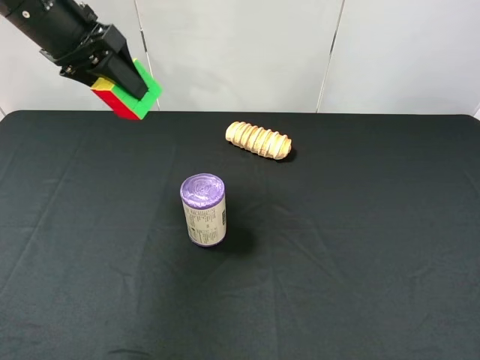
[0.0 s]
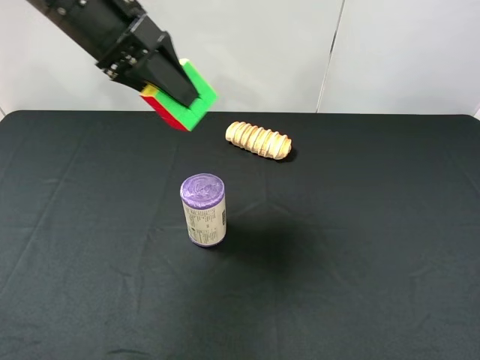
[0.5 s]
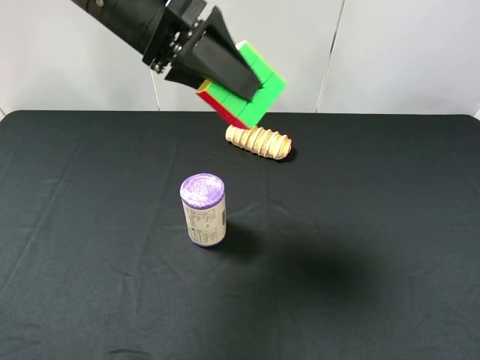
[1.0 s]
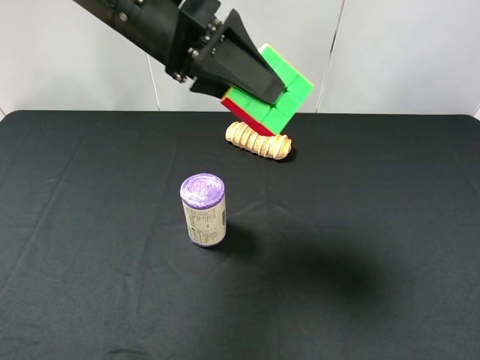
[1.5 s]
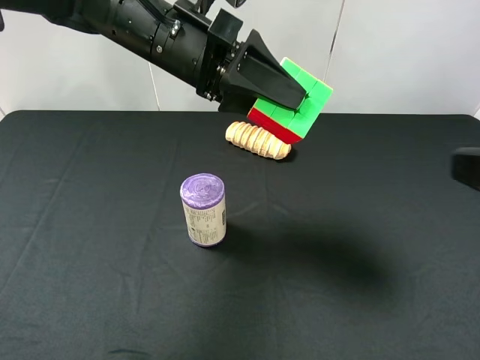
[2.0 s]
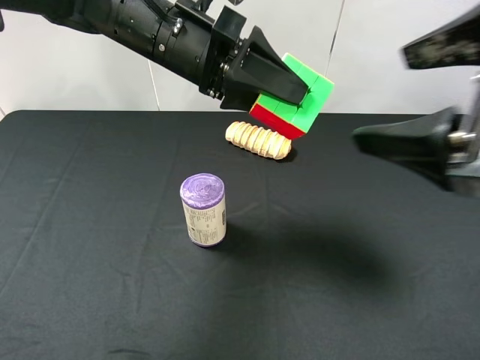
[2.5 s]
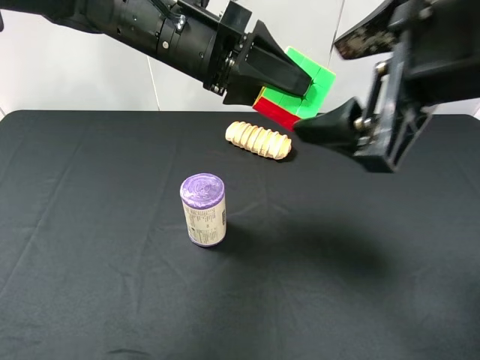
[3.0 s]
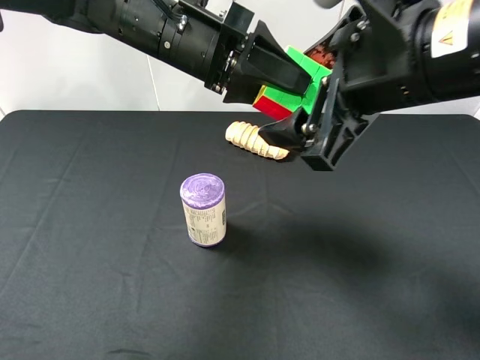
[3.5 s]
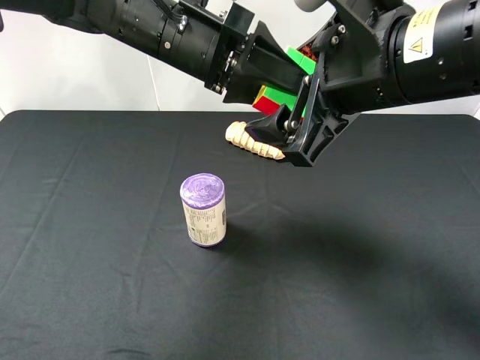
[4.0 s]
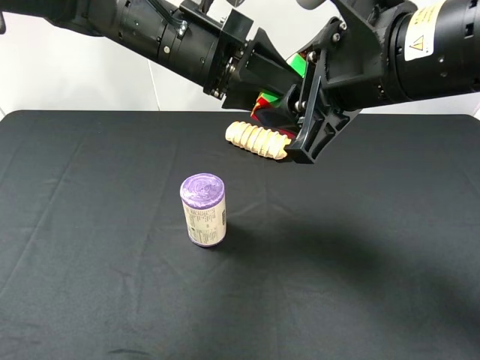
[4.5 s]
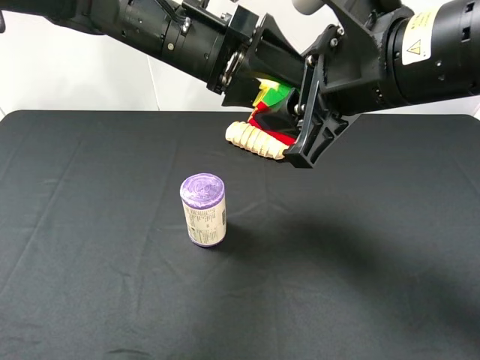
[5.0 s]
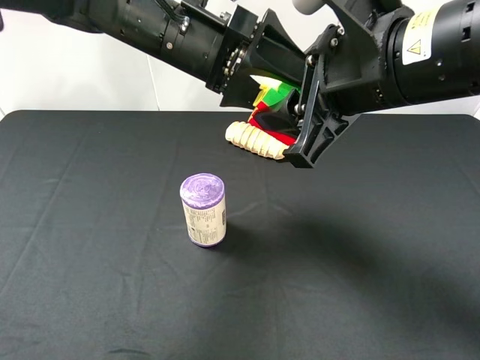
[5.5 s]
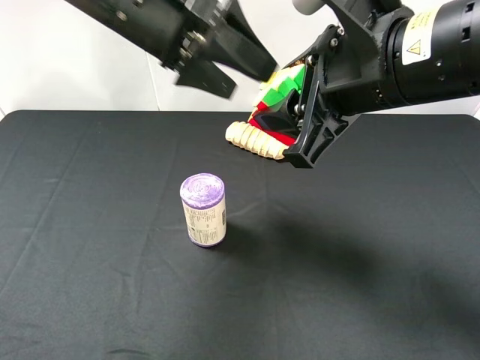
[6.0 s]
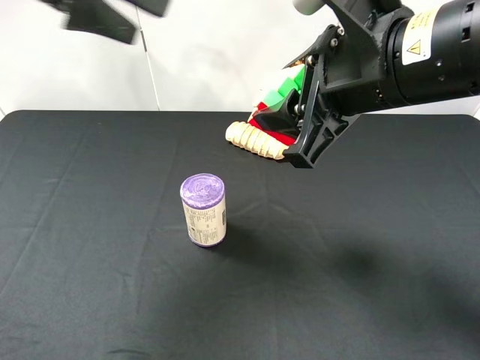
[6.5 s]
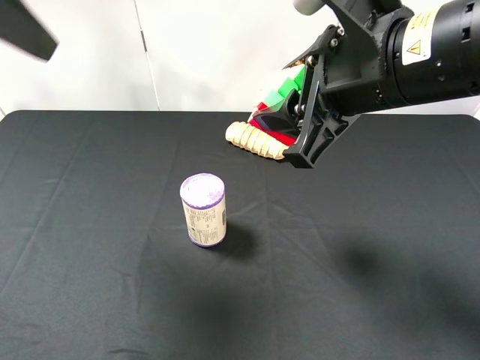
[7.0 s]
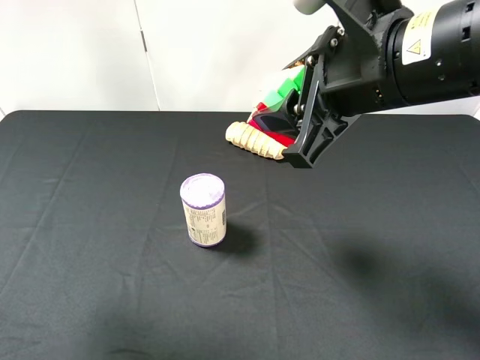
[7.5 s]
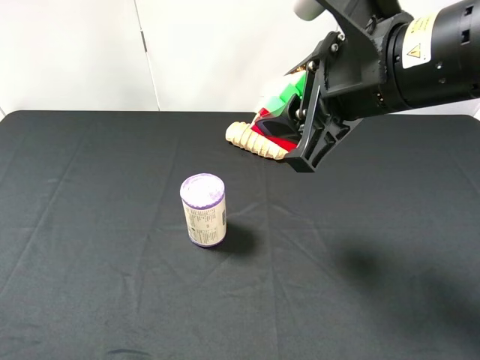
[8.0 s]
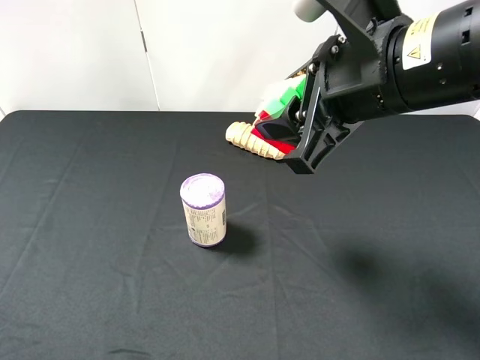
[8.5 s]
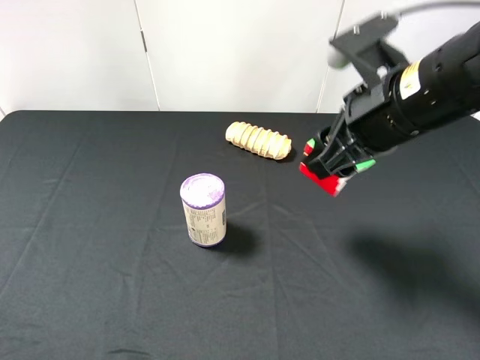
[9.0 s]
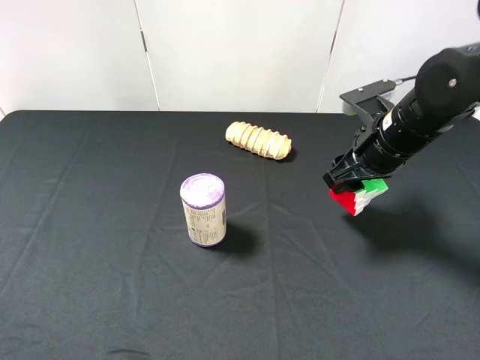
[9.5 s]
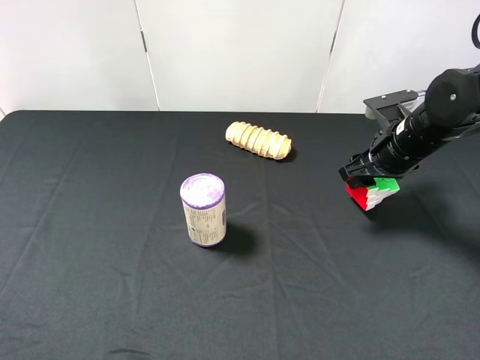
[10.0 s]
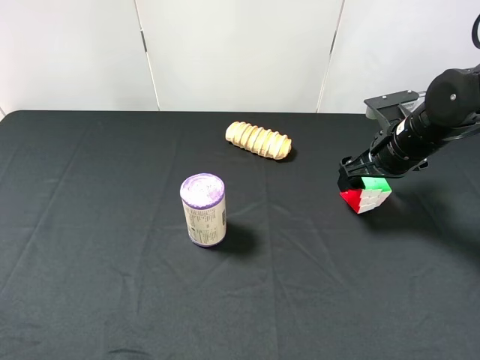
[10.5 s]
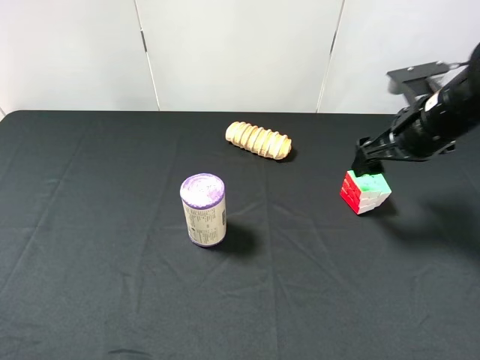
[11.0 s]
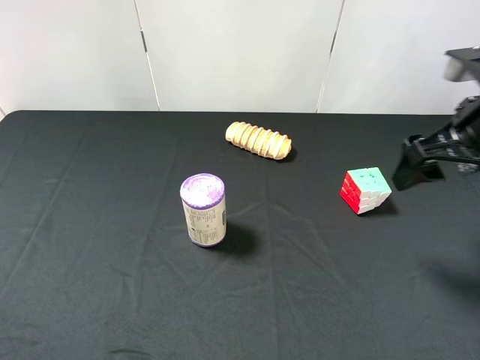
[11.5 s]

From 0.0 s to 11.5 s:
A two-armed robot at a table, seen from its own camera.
Task of the whole recording: use the left gripper to pick up the item and transfer it from the left gripper to the right gripper.
From 0.0 s to 2.0 s: The left gripper moves to the right, roughly 15 cm. Meanwhile the right gripper travels forward and upward by approximately 10 cm.
From 2.0 s to 4.0 s: The right gripper travels to the left and forward by about 20 cm.
From 4.0 s to 6.0 s: The left gripper heads to the left, covering about 5 cm, and opens its fingers. The right gripper closes up.
From 6.0 s to 7.5 s: The left gripper shifts roughly 25 cm backward and to the left.
From 7.5 s to 9.5 s: The right gripper is displaced downward, forward and to the right by approximately 20 cm, while the left gripper goes some 15 cm backward and downward.
From 9.5 s to 11.5 s: The right gripper travels upward, backward and to the right by some 15 cm, and opens.

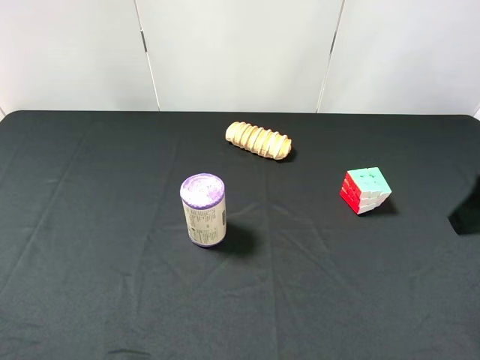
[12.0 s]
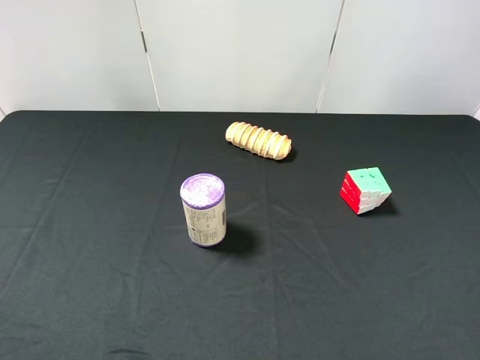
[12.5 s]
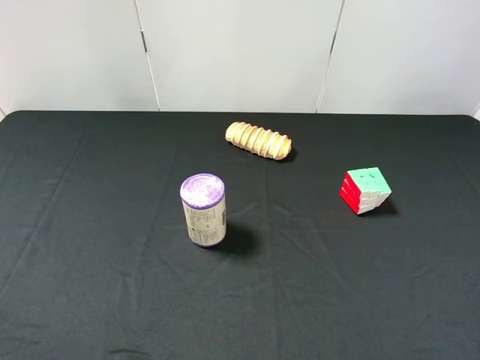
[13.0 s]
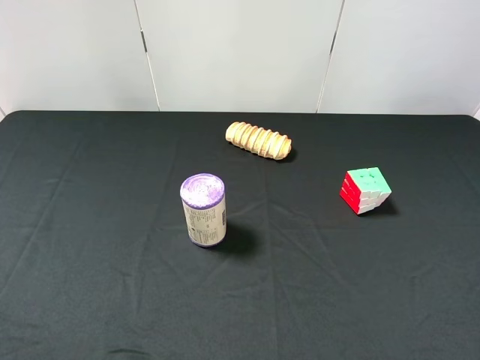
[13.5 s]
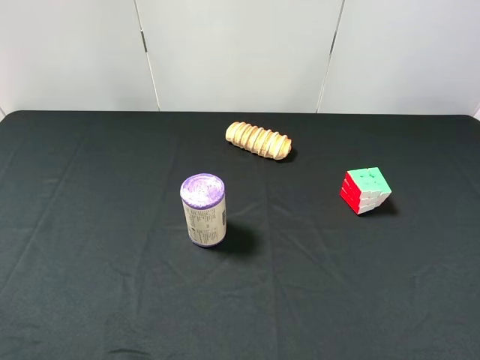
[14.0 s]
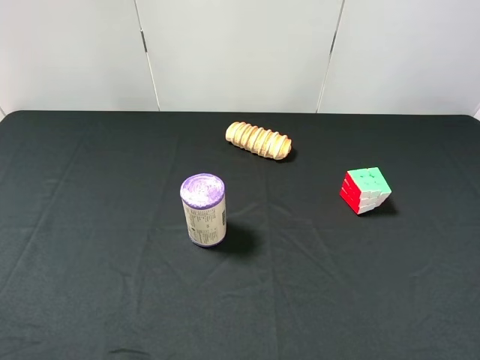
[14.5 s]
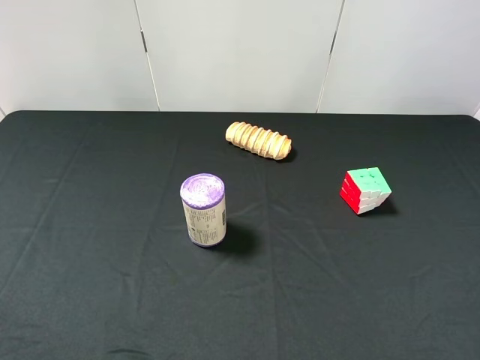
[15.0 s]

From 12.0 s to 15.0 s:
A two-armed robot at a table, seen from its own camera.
Task of the whole recording: use the left gripper to pick up the item and transfer it from the left gripper to the right gripper.
From 12.0 s to 13.5 s: The right gripper travels backward by approximately 15 cm.
